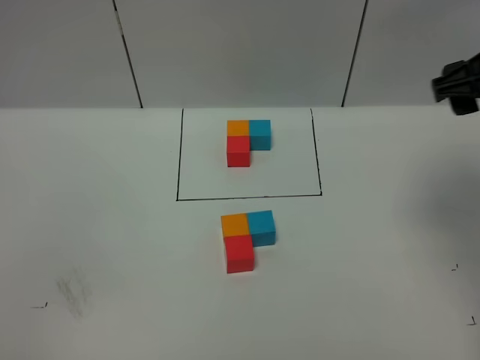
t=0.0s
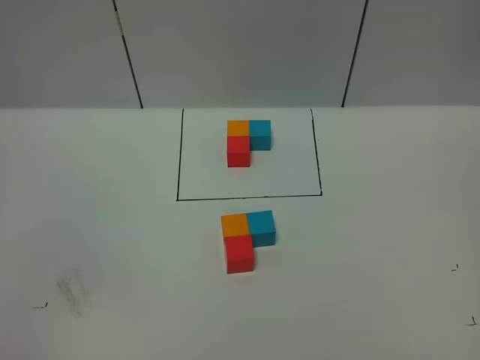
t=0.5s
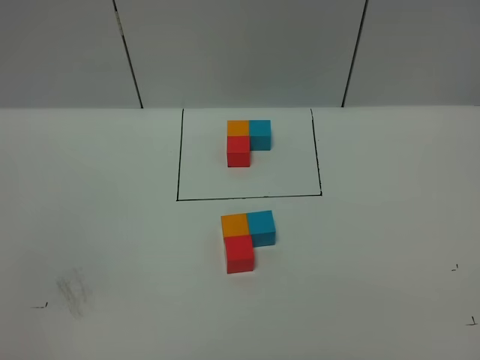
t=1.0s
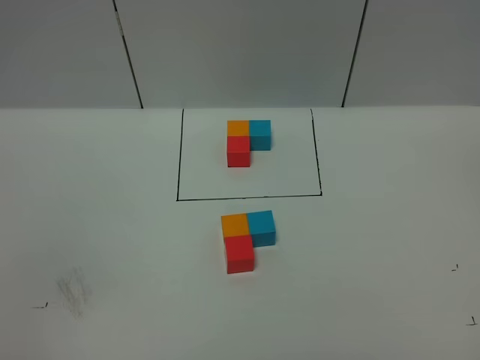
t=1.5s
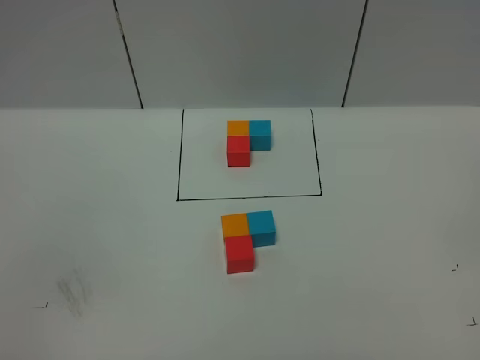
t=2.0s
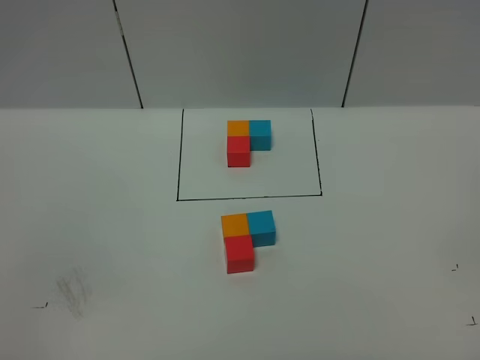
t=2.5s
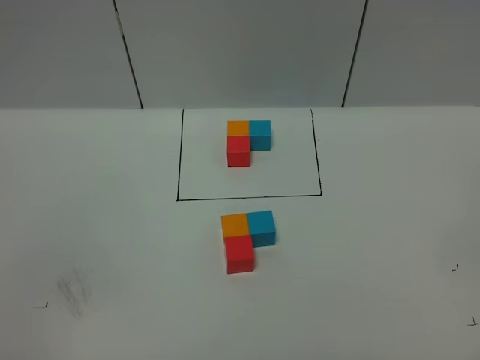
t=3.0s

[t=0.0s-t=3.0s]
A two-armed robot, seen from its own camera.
Task of the whole recording: According to the building block template in front, assemble the scattered blocks together.
t=0.0s to t=1.5s: The right gripper goes some 35 cm backward.

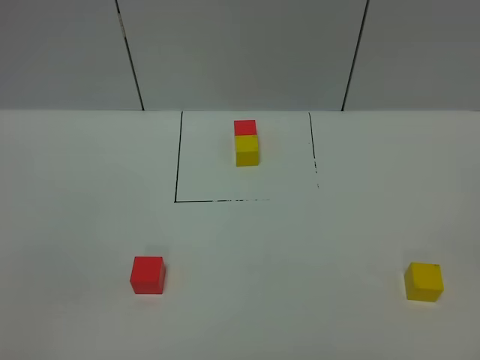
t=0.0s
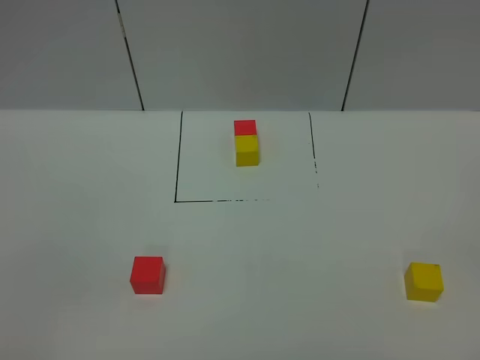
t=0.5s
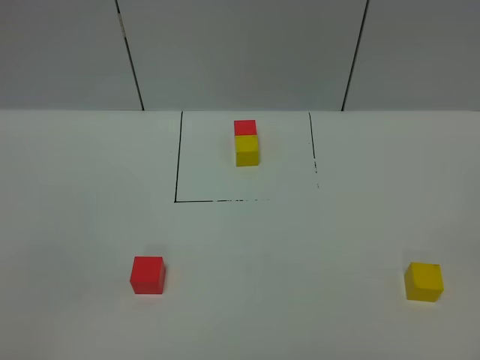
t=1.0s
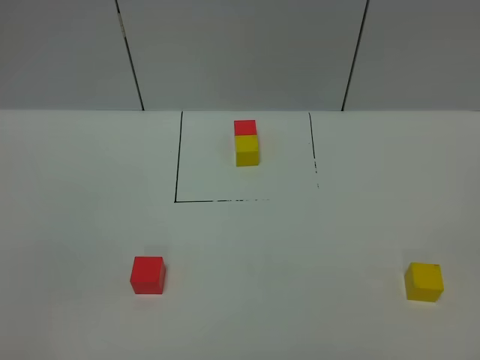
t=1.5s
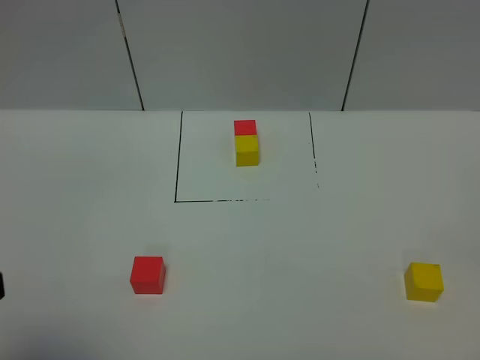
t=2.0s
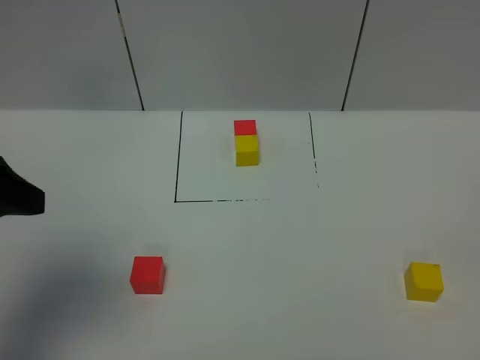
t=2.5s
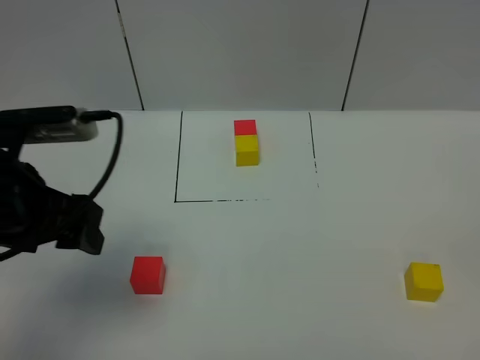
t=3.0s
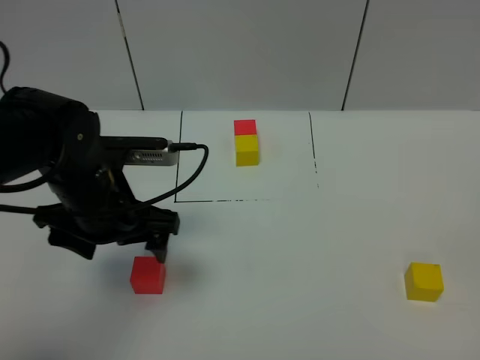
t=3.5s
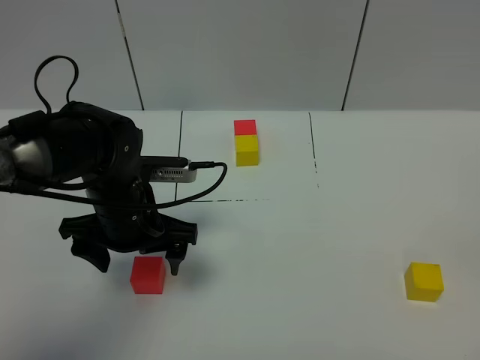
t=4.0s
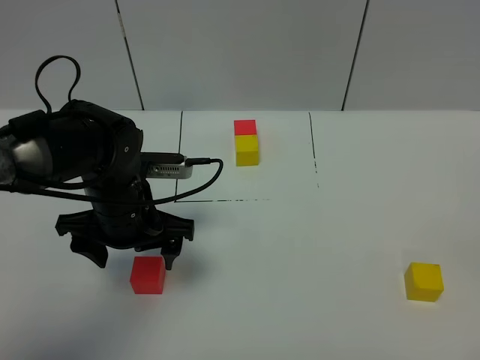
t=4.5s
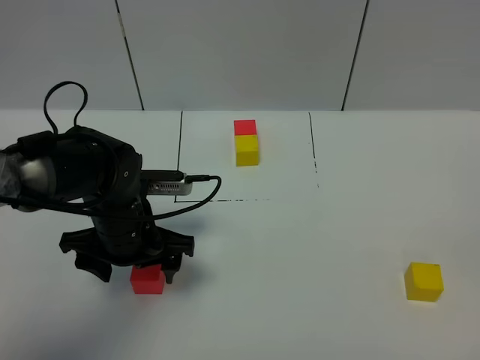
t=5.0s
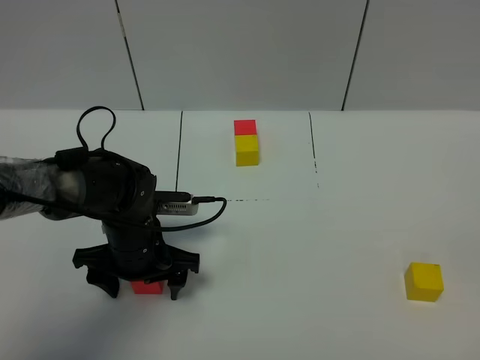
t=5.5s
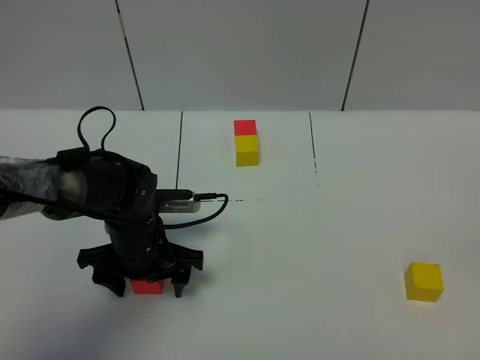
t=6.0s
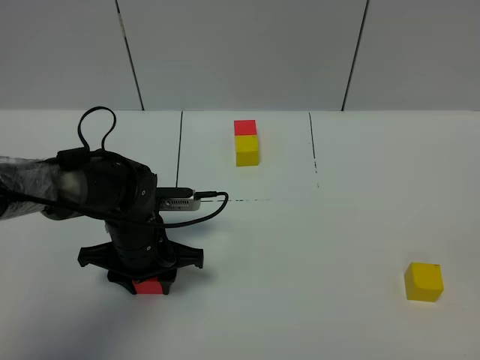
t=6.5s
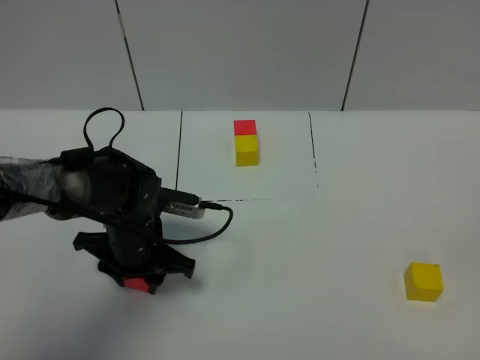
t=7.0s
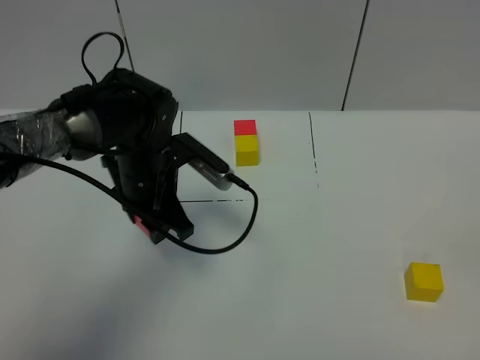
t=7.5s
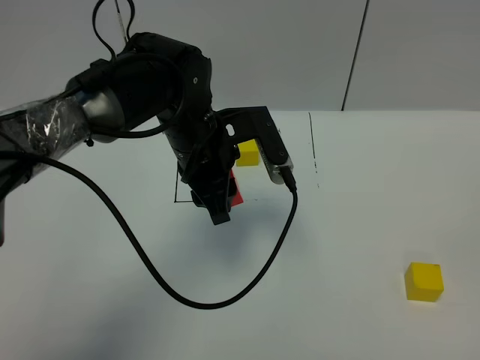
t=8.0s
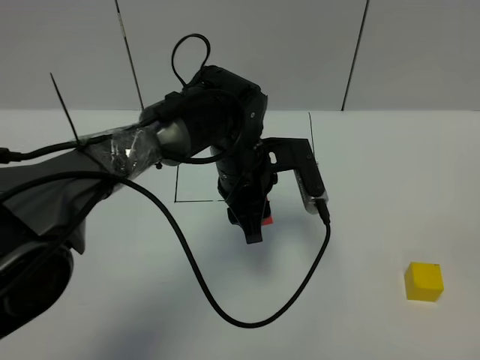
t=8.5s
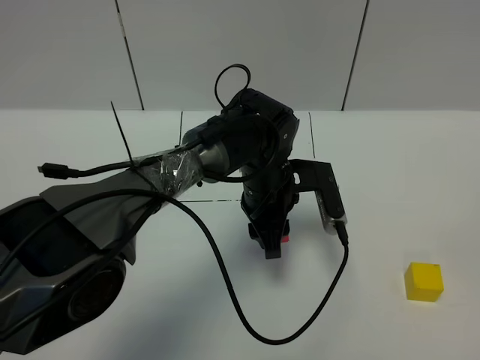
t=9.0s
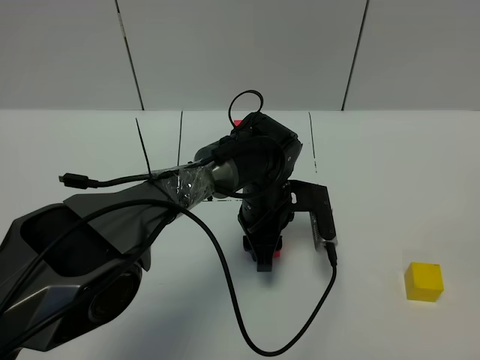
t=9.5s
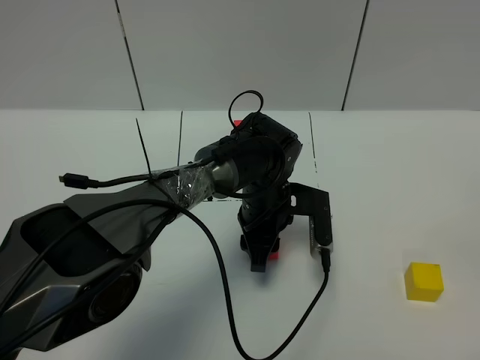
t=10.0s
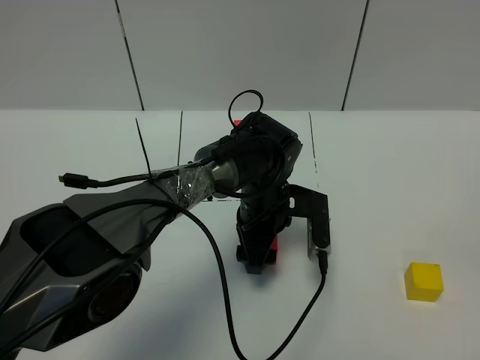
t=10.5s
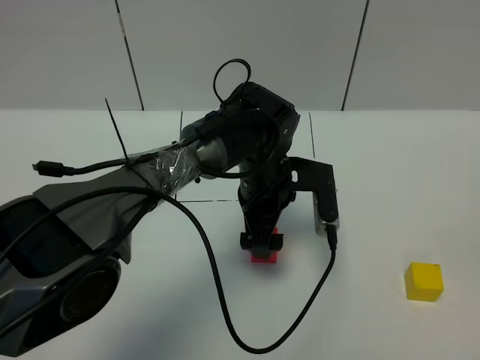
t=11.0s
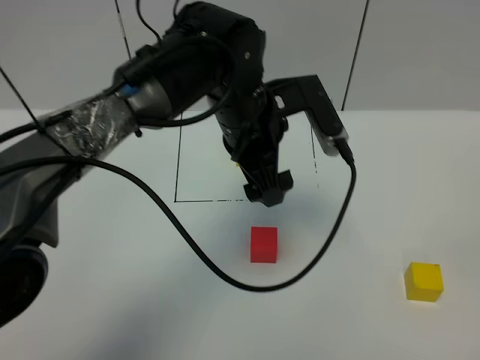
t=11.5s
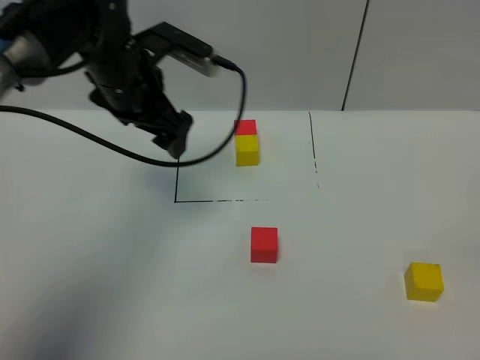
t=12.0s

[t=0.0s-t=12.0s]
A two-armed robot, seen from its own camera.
Task of the whole recording: According to the building block template in front, assemble the scattered blocks together.
Step, t=2.0s to t=11.5s: Put the red cube in the center of the table.
t=0.0s to t=2.0s: The left gripper is displaced forward and upward by roughly 10 cm.
t=2.0s to t=4.0s: The left gripper travels forward, downward and to the right by approximately 30 cm.
t=4.0s to t=6.0s: The left gripper travels downward by about 5 cm.
t=6.0s to t=8.0s: The left gripper shifts some 15 cm upward, to the right and forward, and closes.
t=8.0s to t=10.0s: The left gripper goes some 15 cm downward and to the right.
t=10.0s to t=12.0s: The left gripper moves to the left and upward, about 25 cm, and opens its fingers.

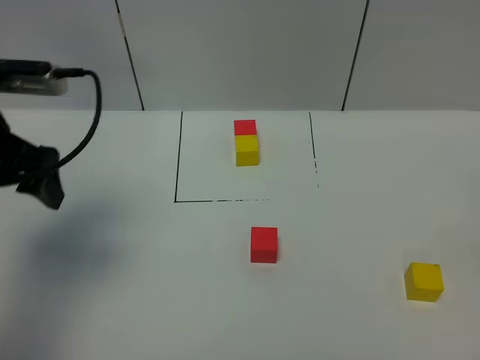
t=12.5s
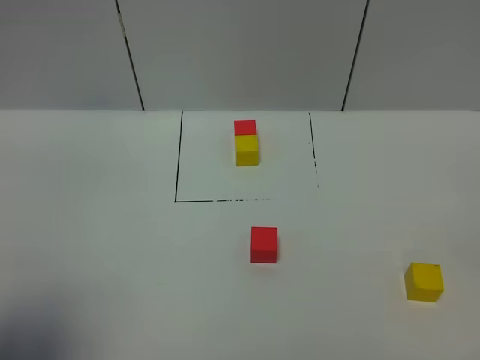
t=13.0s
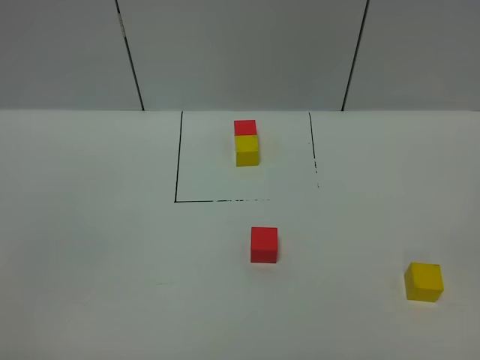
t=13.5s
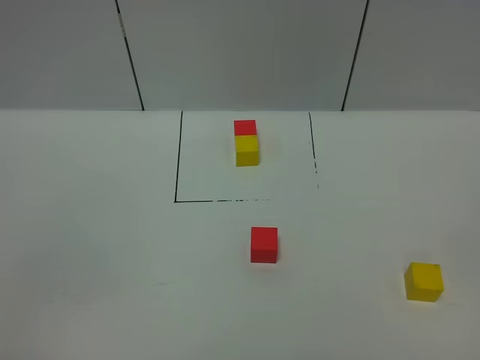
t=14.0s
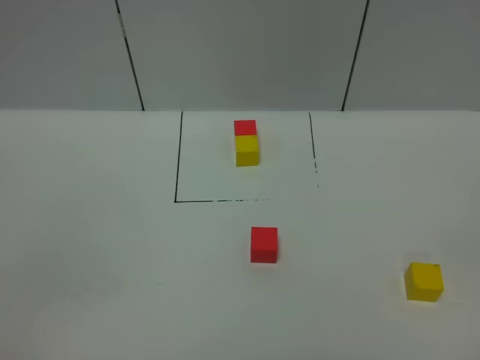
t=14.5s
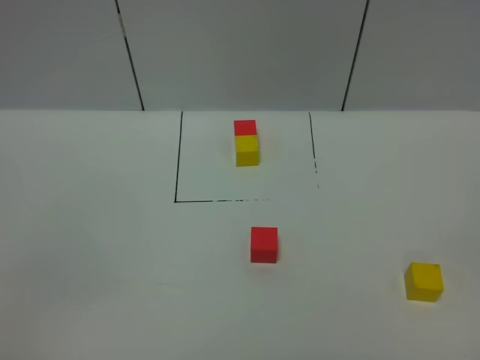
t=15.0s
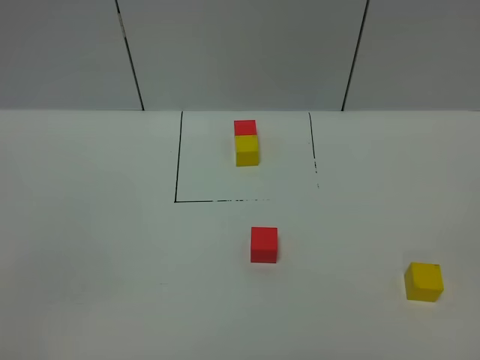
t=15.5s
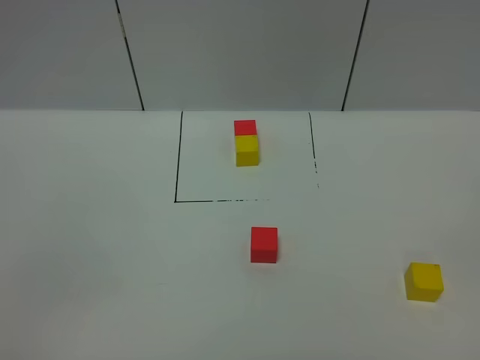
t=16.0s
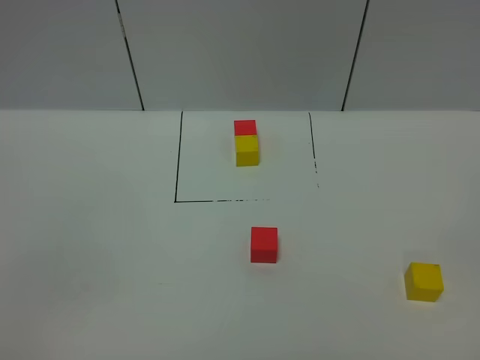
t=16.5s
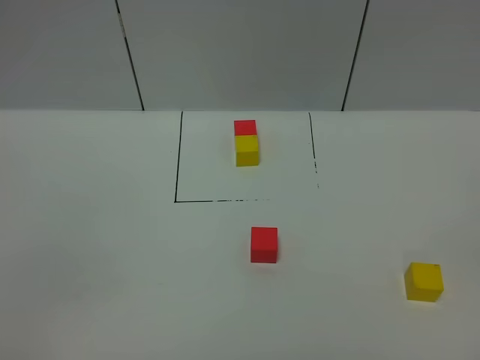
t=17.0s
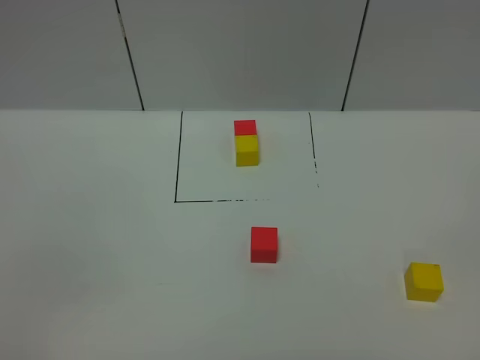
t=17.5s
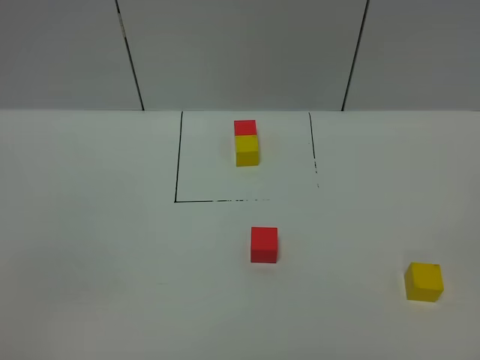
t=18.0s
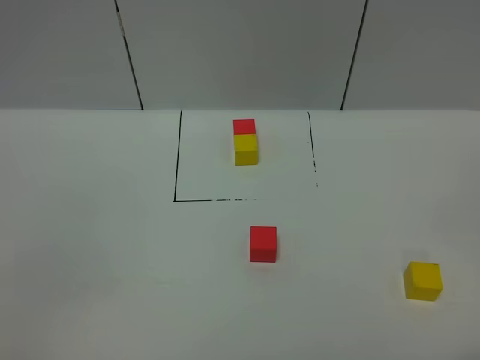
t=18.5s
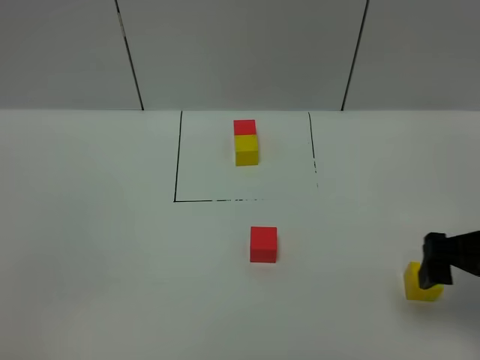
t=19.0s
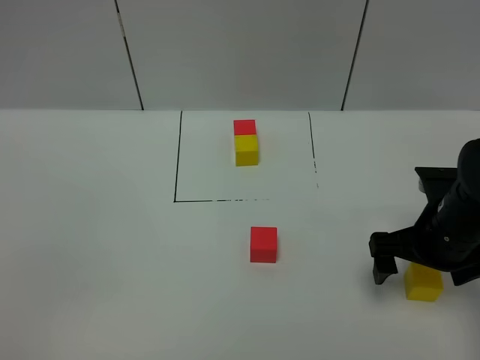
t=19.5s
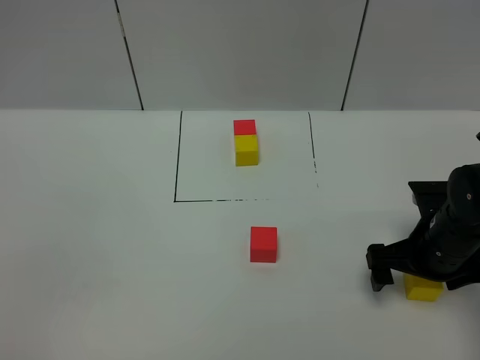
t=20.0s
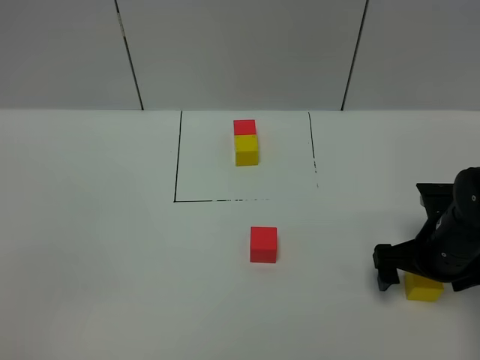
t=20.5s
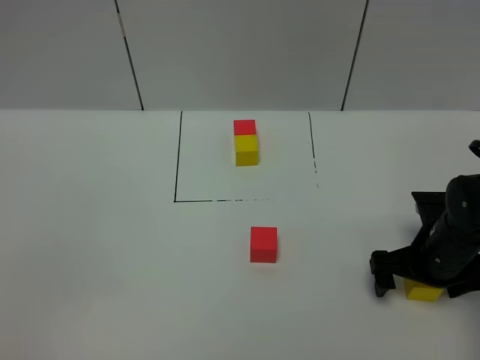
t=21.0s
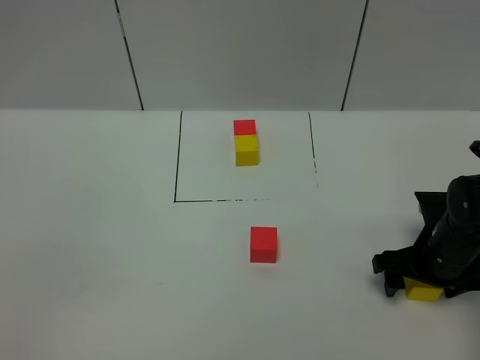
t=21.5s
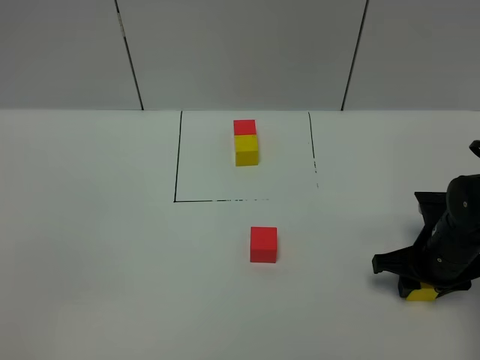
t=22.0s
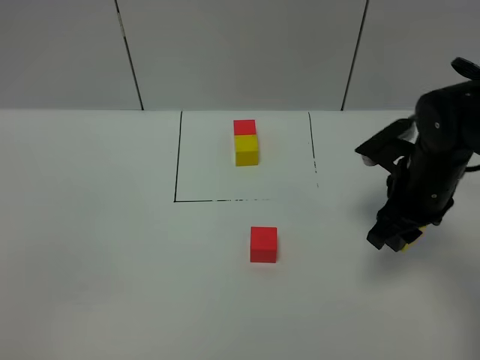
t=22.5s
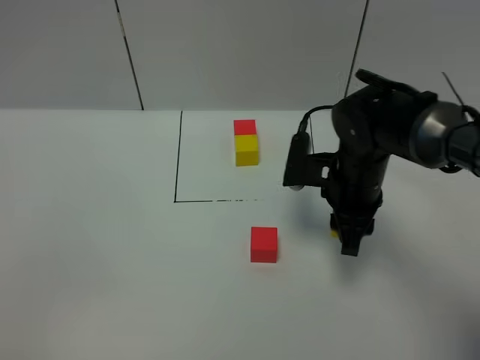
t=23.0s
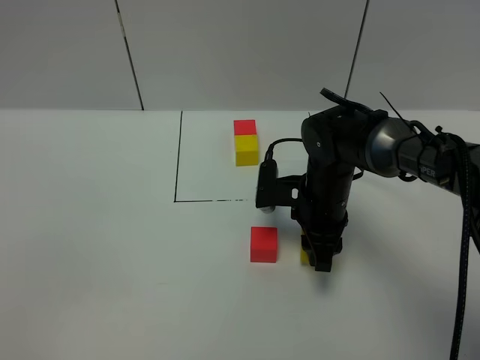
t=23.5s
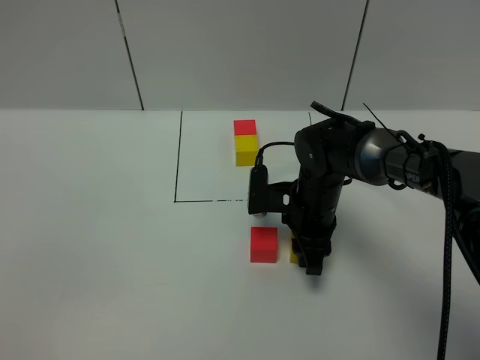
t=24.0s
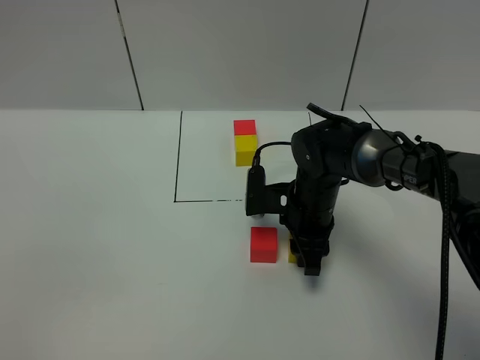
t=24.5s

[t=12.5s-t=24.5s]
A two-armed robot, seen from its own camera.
Task of the whole recording: According to the building block template in front, assemble the scattered blocks together.
t=12.5s to t=14.5s: The left gripper is displaced backward by roughly 30 cm, and closes its fingers.
t=14.5s to t=16.5s: The two grippers keep their place.
t=18.5s to t=20.5s: The right gripper is displaced forward and downward by some 25 cm.
t=20.5s to t=22.5s: The right gripper shifts roughly 5 cm upward, and closes up.
t=22.5s to t=24.5s: The right gripper heads to the left and downward, covering some 15 cm.
